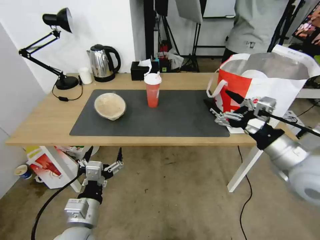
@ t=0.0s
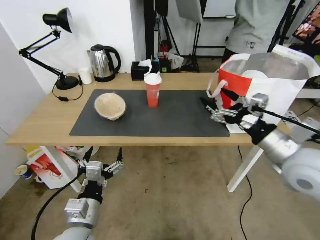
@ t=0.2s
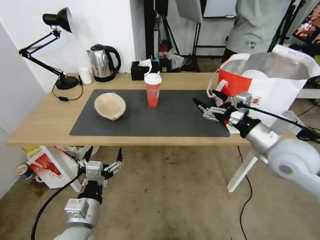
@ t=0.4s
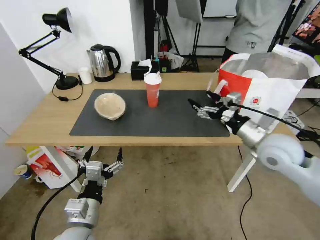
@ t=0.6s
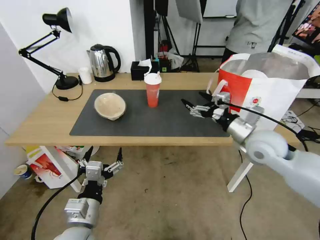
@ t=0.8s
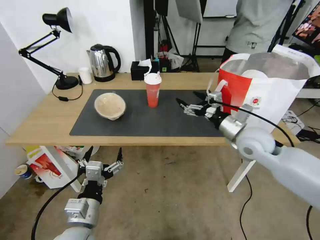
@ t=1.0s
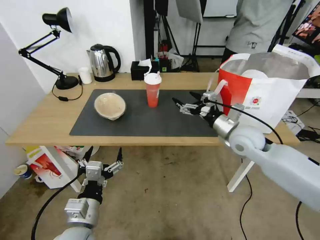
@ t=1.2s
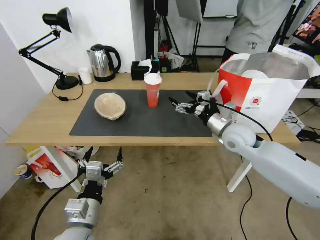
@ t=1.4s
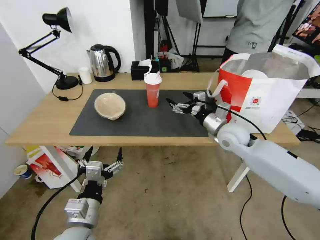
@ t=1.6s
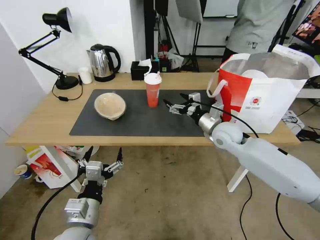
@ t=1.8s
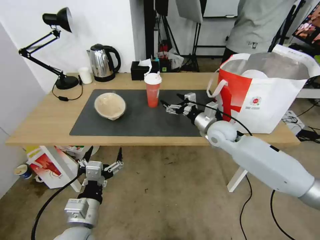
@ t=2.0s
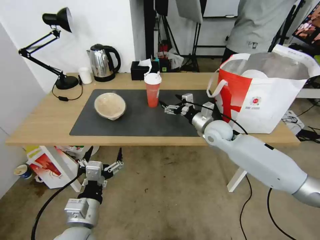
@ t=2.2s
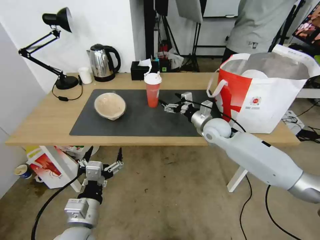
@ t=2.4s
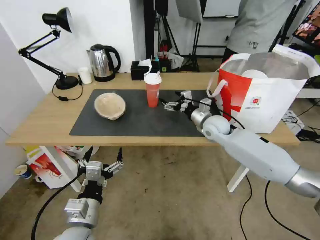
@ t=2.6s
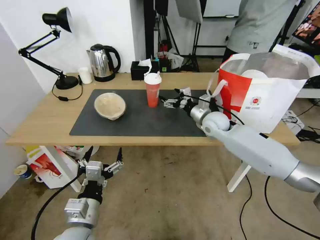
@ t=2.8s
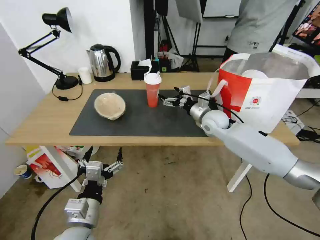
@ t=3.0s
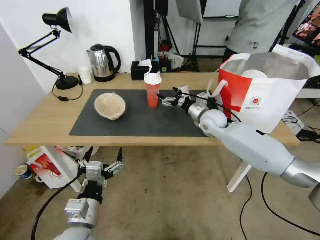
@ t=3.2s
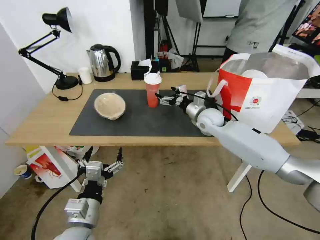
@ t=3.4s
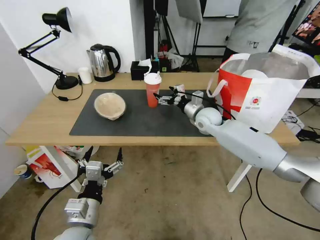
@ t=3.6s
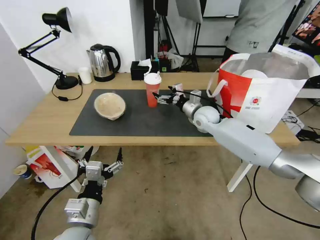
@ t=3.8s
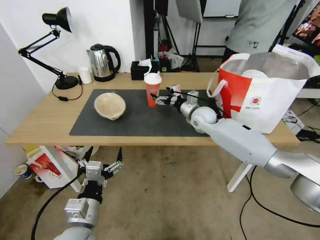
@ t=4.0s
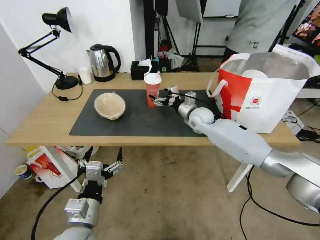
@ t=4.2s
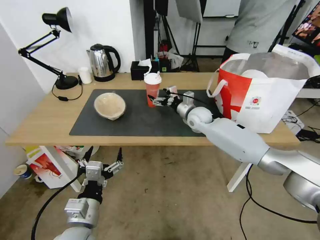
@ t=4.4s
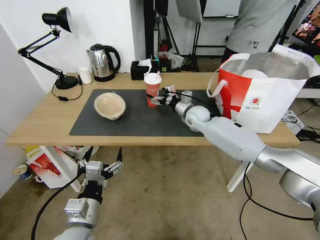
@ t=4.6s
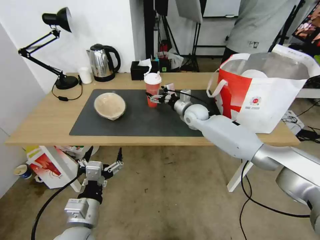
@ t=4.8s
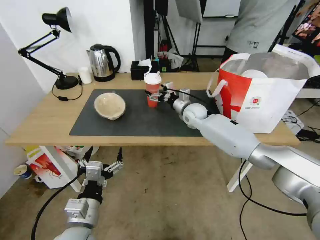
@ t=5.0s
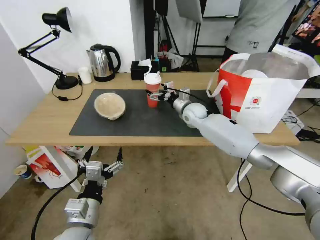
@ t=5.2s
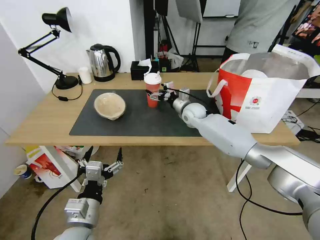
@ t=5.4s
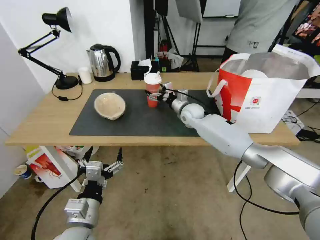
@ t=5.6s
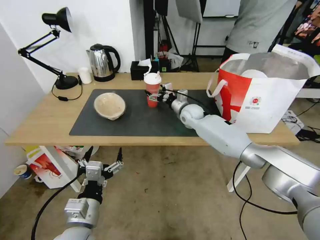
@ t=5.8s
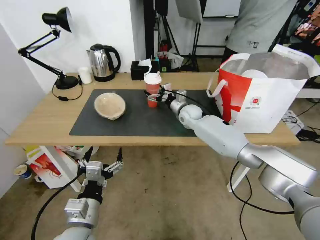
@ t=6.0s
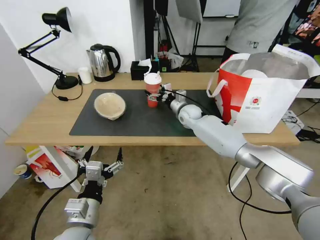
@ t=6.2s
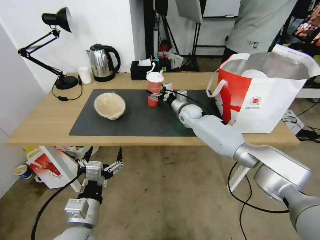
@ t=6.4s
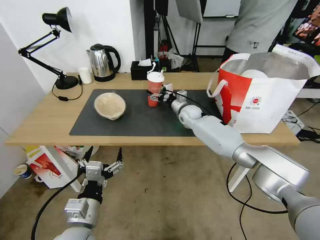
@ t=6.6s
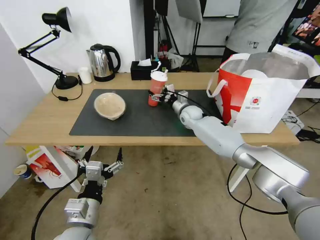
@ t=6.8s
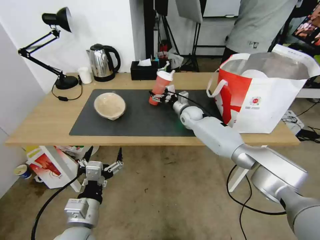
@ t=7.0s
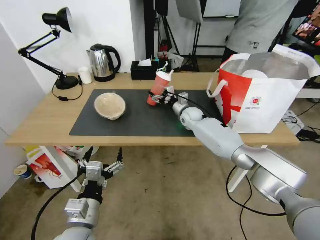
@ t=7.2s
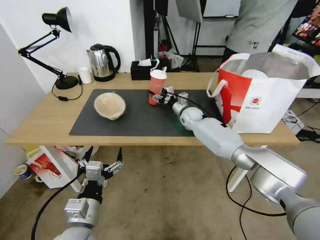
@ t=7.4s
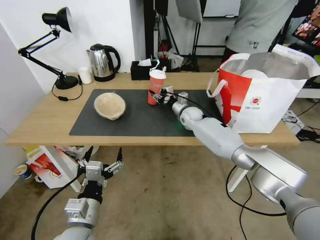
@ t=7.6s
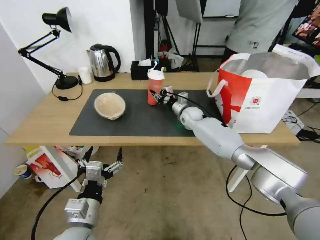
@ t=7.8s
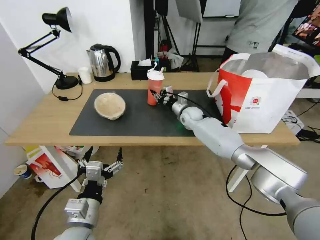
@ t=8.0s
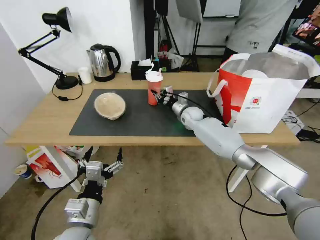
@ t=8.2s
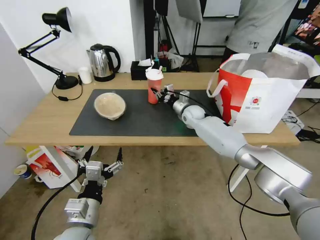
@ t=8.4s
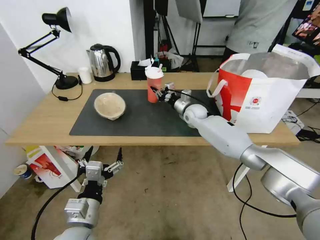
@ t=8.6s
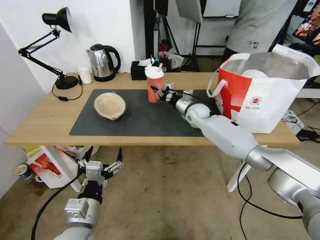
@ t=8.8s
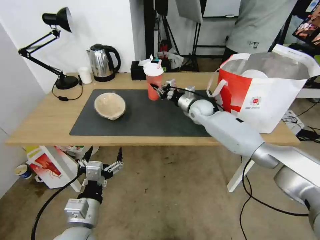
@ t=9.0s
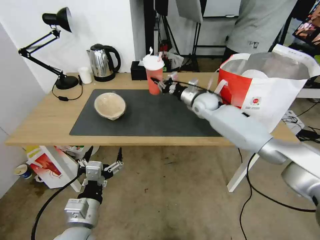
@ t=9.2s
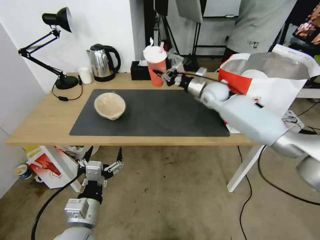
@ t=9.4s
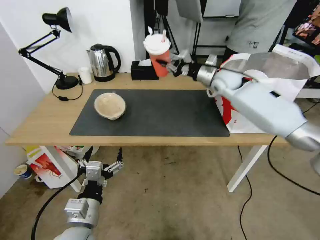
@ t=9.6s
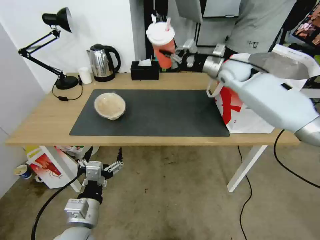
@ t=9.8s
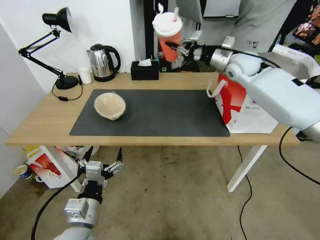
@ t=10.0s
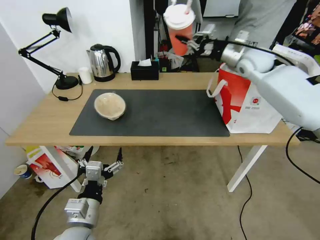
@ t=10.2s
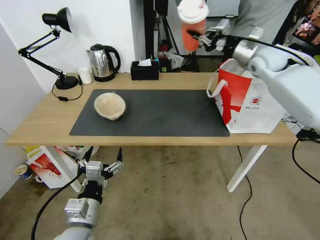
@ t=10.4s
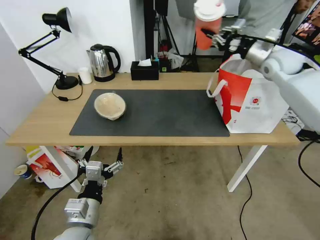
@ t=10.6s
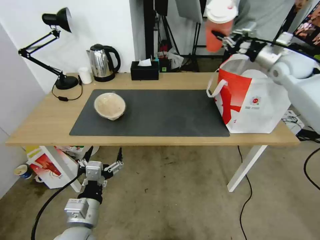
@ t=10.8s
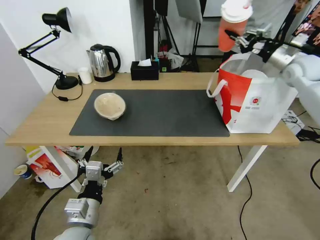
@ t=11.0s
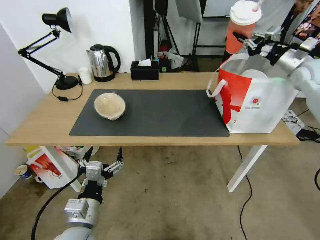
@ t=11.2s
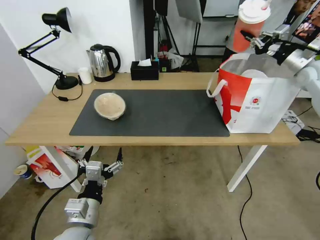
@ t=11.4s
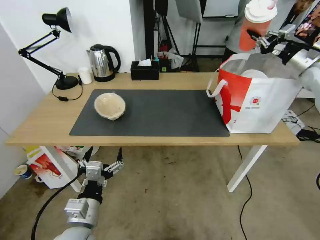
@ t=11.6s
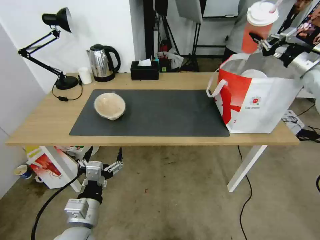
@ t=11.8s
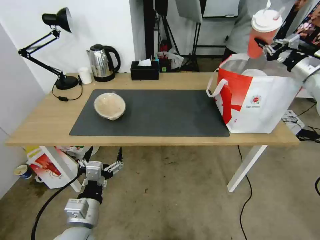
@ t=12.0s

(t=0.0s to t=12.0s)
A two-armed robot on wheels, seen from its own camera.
Task of the whole recording: Pick up the trash from the table and place it into the takeout bag.
t=0.0s - t=1.6s: The right gripper shifts some 20 cm forward, downward and to the left.
t=1.6s - t=3.0s: The right gripper goes approximately 10 cm forward.
t=3.0s - t=4.4s: The right gripper shifts by approximately 5 cm.
t=4.4s - t=6.0s: The grippers make only small movements.
t=6.0s - t=7.6s: The right gripper closes.
t=7.6s - t=9.0s: The right gripper closes up.
t=9.0s - t=10.4s: The right gripper is displaced upward and to the right by approximately 30 cm.
t=10.4s - t=12.0s: The right gripper shifts some 20 cm to the right.

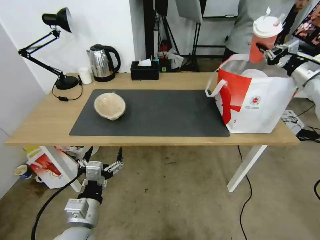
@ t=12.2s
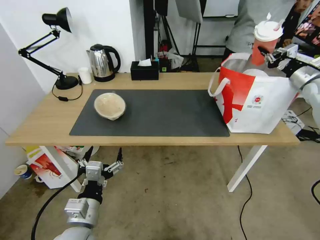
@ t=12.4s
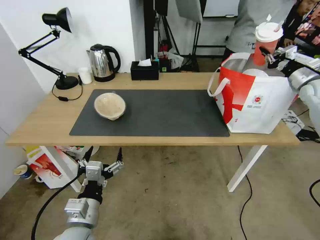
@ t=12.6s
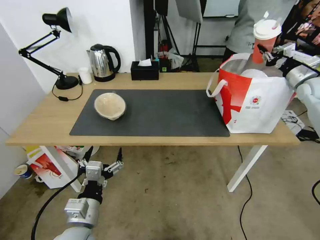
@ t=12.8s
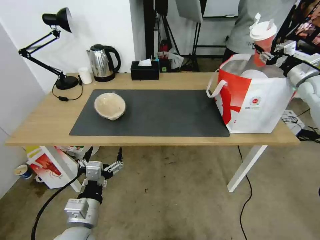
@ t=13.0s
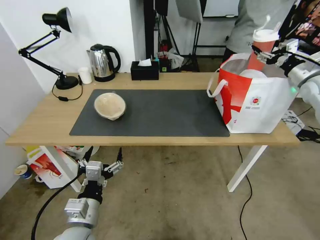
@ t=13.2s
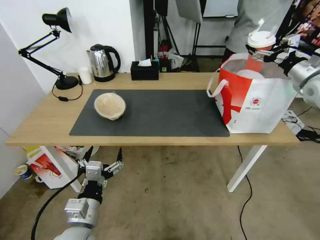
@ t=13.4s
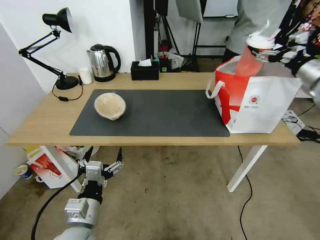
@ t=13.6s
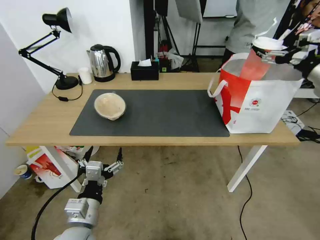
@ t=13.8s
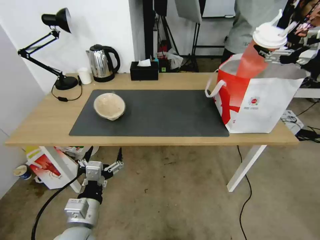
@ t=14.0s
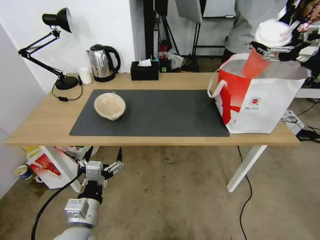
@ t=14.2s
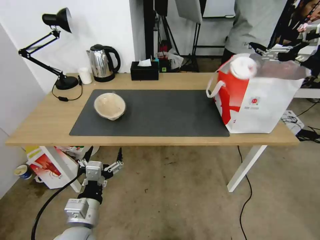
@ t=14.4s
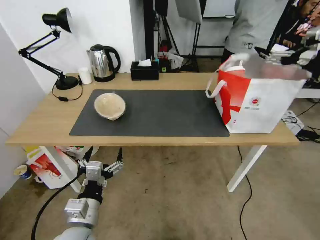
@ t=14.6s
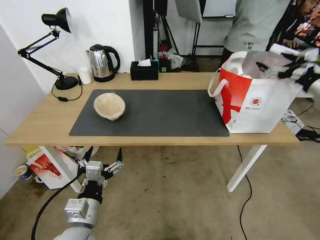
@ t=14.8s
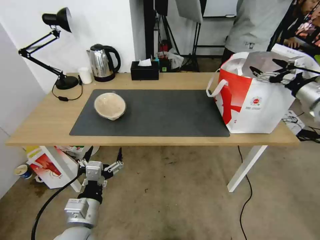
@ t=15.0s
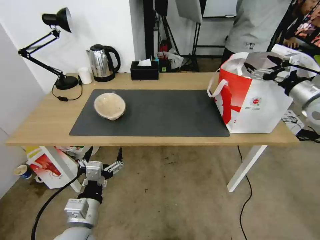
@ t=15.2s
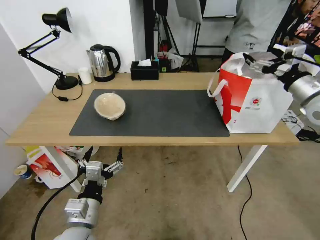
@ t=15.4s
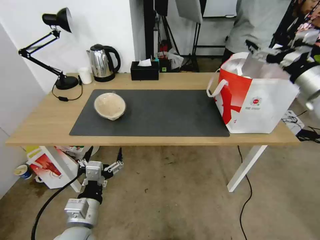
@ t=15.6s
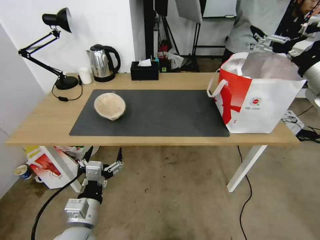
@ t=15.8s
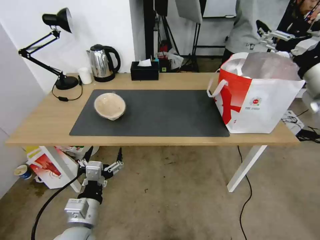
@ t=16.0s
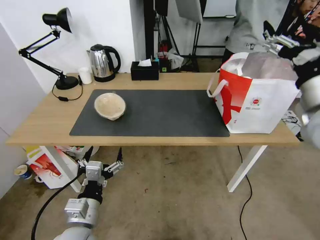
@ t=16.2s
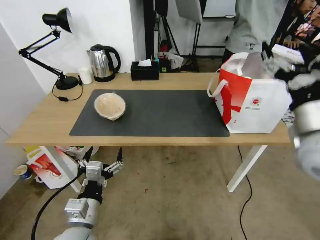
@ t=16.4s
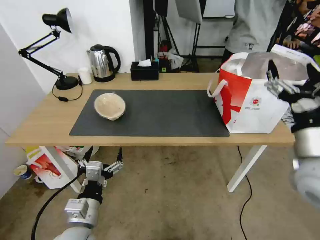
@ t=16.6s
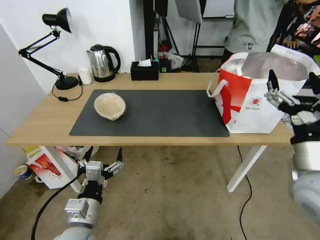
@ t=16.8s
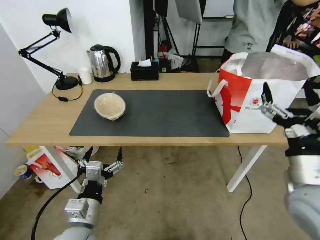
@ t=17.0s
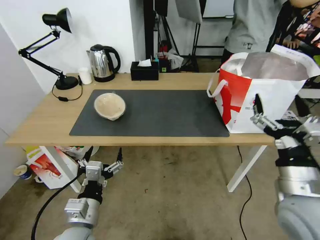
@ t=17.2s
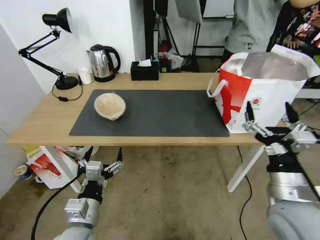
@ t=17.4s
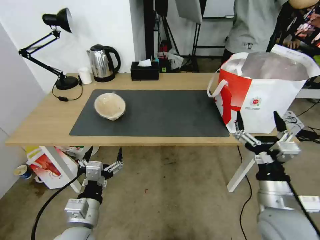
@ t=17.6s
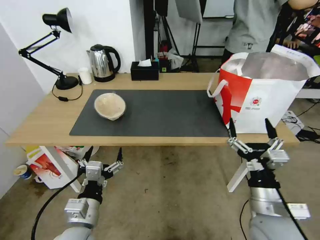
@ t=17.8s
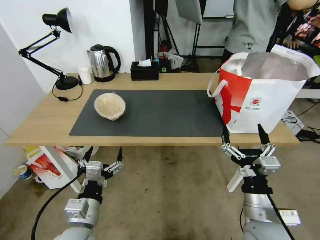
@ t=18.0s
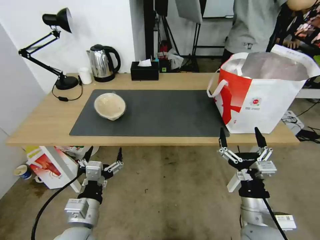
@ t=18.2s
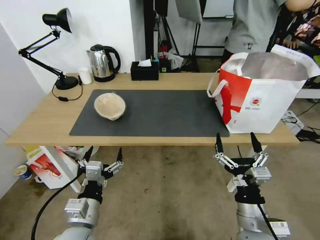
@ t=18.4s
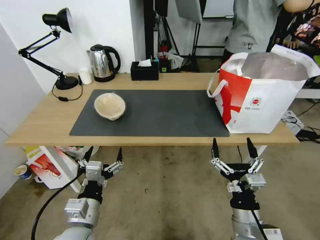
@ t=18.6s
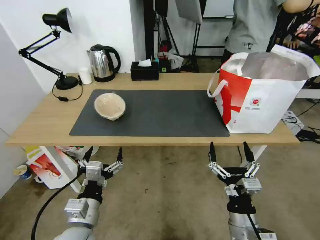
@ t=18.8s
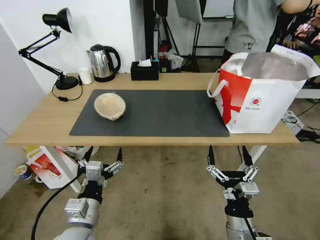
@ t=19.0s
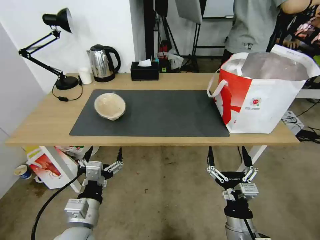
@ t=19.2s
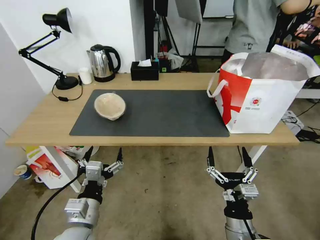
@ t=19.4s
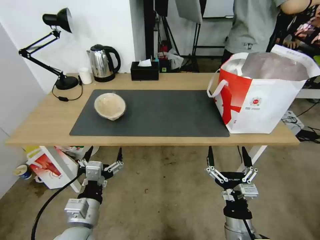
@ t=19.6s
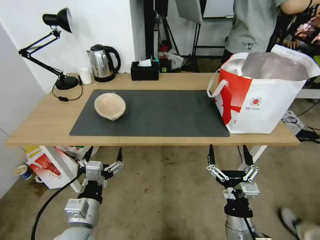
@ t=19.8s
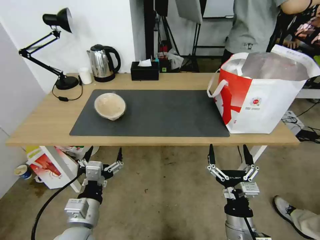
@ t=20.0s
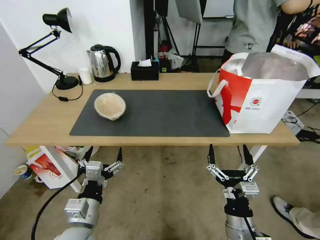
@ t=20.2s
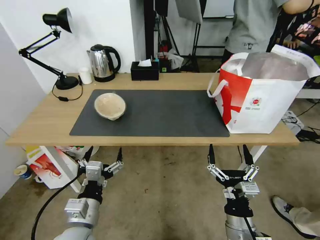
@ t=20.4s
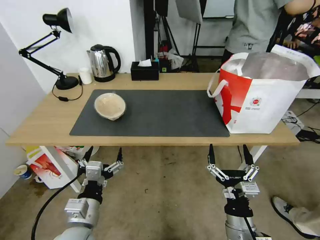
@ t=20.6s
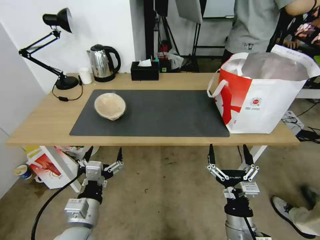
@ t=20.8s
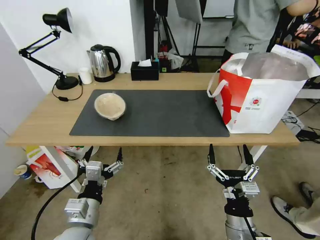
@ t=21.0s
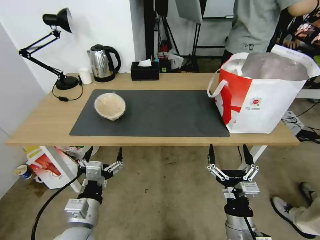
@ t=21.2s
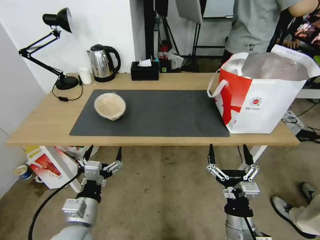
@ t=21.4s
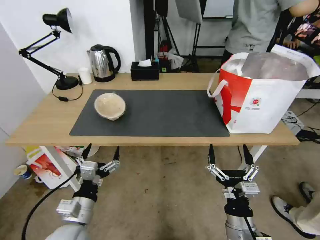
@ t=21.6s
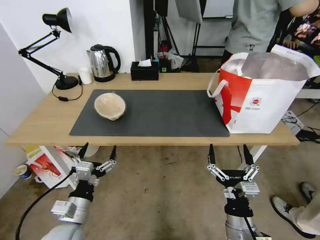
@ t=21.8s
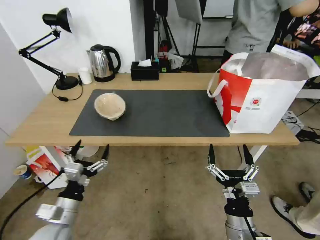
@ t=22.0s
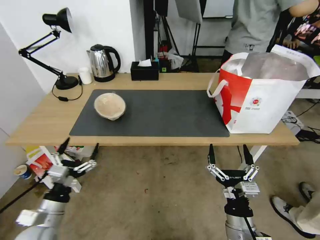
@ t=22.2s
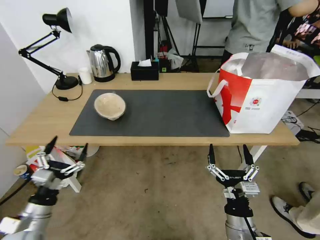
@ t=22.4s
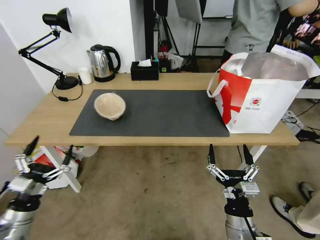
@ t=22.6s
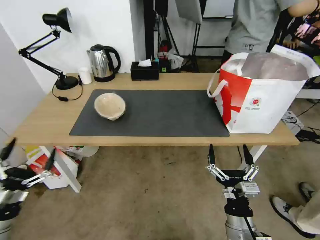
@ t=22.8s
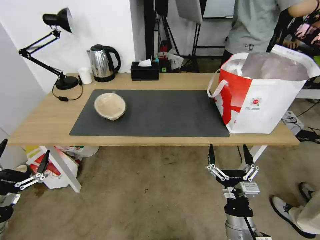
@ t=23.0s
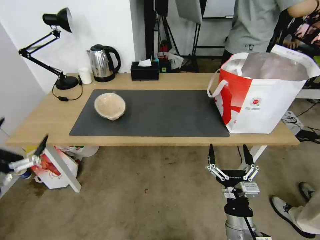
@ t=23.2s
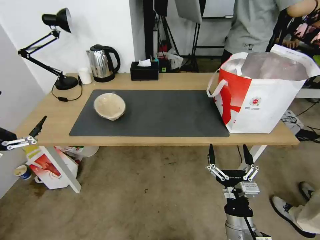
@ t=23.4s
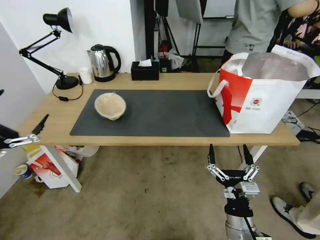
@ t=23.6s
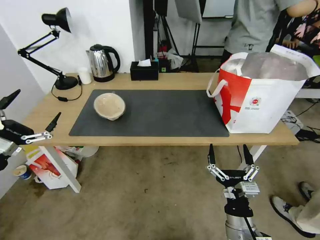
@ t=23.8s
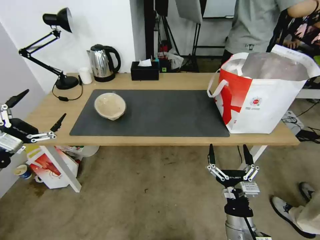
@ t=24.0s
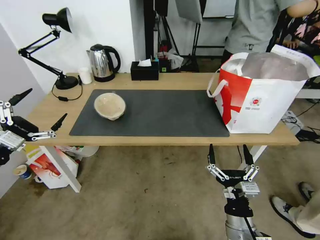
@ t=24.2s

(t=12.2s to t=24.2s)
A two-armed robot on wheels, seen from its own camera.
Task of the whole recording: Pick up the trash from the table and place it into the takeout bag.
t=12.2s - t=13.8s: The right gripper is displaced backward, to the left and upward by approximately 20 cm, and opens up.
t=13.8s - t=15.2s: The right gripper shifts about 5 cm downward.
t=15.2s - t=16.6s: The right gripper shifts approximately 25 cm backward and to the left.
t=16.6s - t=18.2s: The right gripper travels downward, to the left and backward by about 20 cm.
t=18.2s - t=19.8s: The right gripper shifts about 5 cm downward.
t=19.8s - t=21.2s: Both grippers stay about where they are.
t=21.2s - t=22.6s: The left gripper shifts approximately 20 cm to the left.
t=22.6s - t=24.2s: The left gripper shifts roughly 20 cm upward, to the left and forward.
